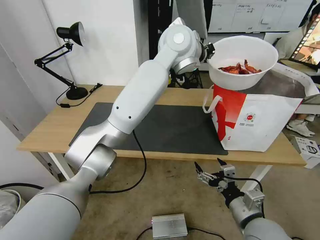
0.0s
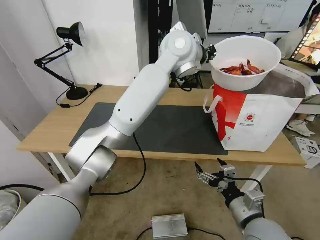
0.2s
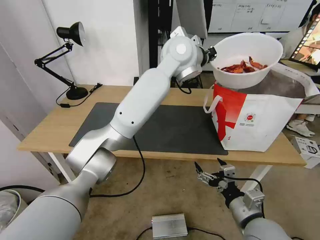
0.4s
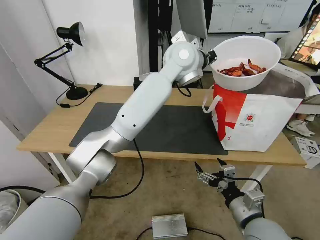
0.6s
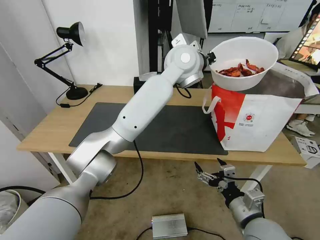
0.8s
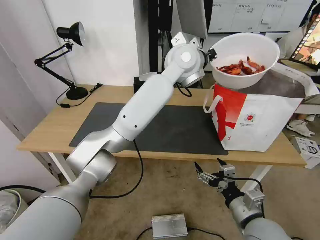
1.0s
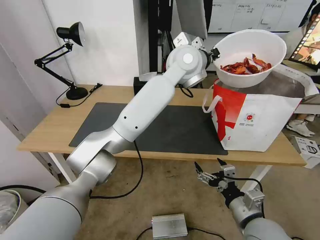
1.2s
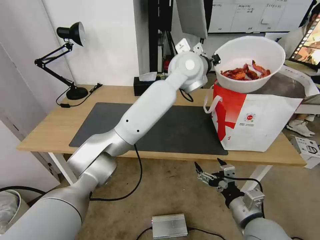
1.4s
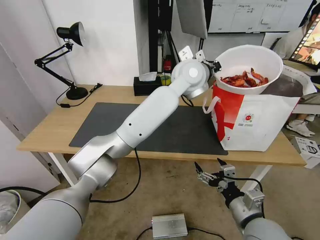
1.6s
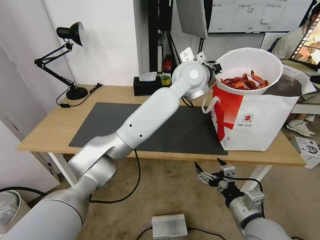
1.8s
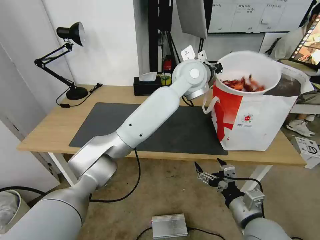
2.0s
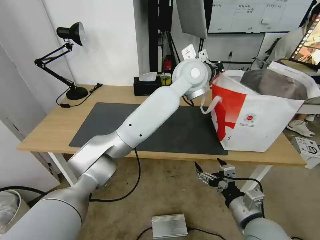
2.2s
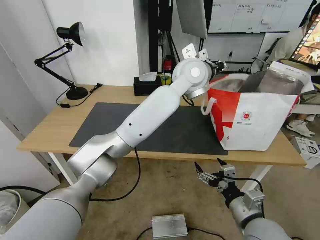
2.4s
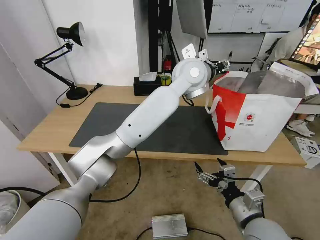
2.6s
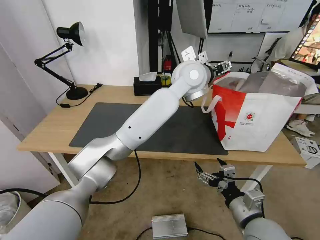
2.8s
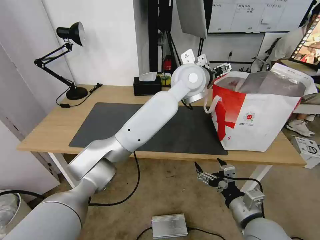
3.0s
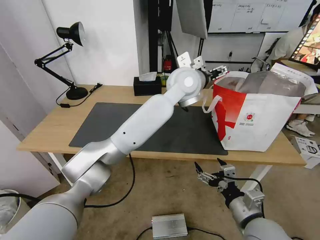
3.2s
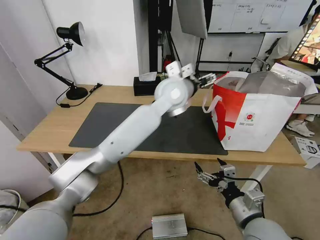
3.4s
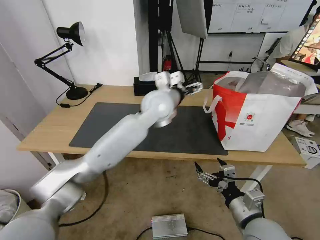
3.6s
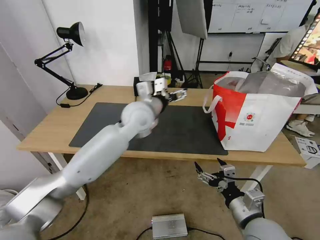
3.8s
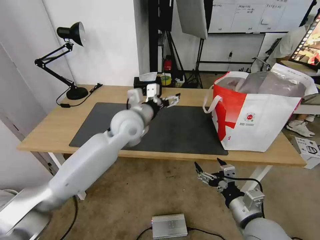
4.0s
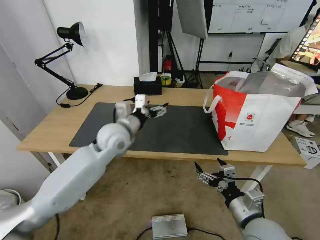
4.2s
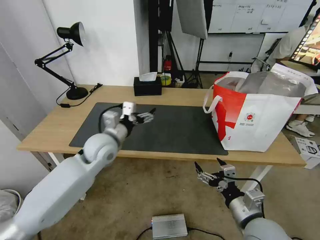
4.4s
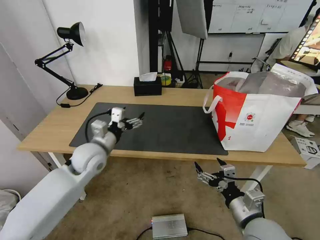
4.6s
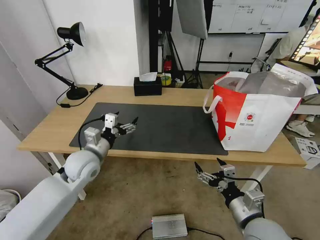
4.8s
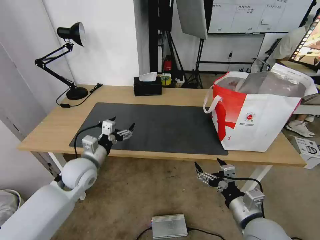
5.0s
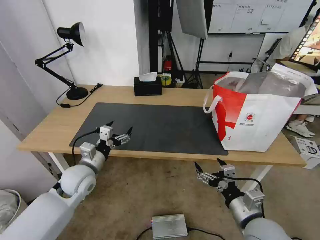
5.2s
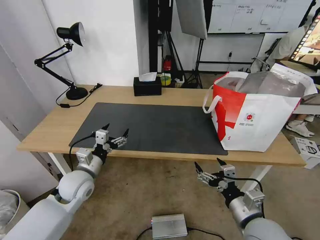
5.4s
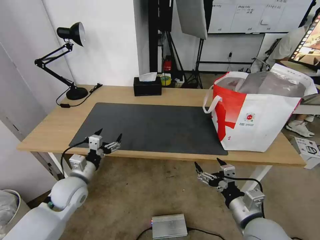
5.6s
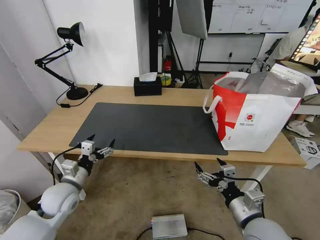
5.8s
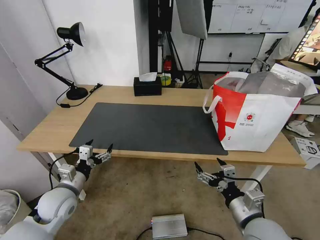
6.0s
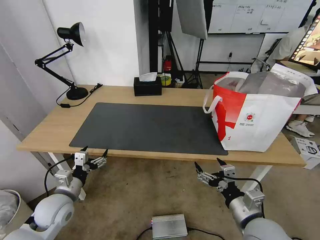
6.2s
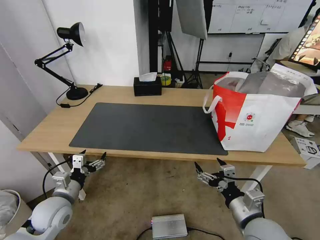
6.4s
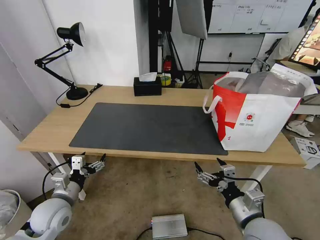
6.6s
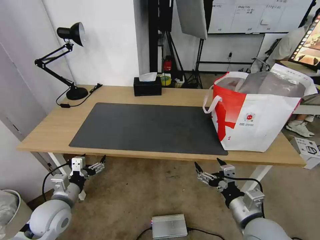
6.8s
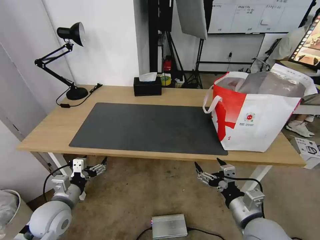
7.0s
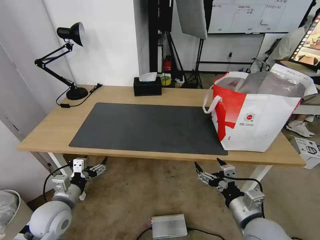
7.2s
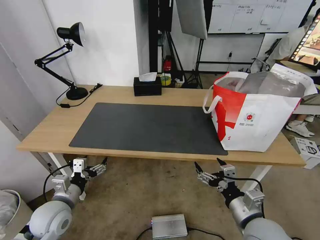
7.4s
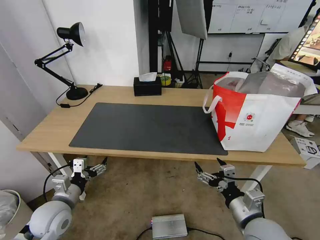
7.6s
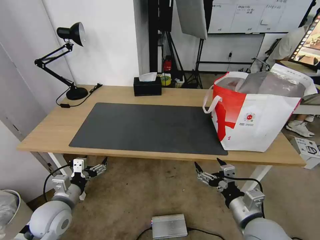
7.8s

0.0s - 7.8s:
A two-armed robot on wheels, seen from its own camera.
Task of the whole recording: Pick up the trash from the table and place it into the takeout bag.
0.0s - 1.6s: The left gripper goes some 10 cm downward.
1.6s - 3.2s: The left gripper opens up.
3.2s - 4.6s: The left gripper shifts roughly 35 cm to the left, downward and backward.
4.6s - 6.2s: The left gripper goes about 20 cm backward, downward and to the left.
6.2s - 7.8s: The grippers make only small movements.
